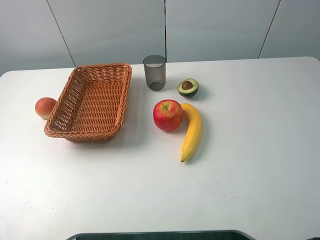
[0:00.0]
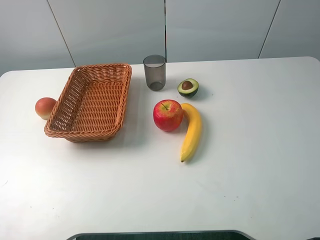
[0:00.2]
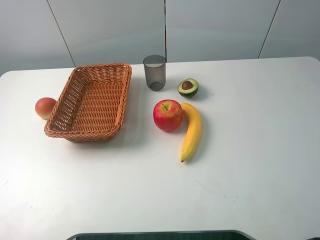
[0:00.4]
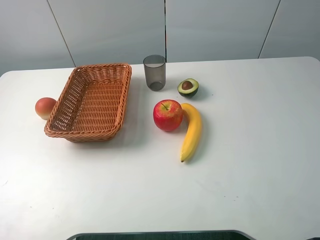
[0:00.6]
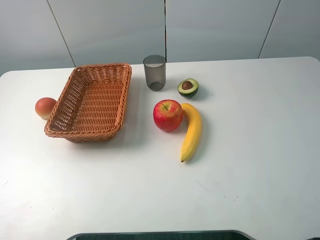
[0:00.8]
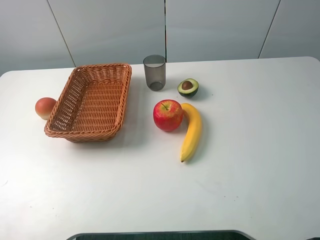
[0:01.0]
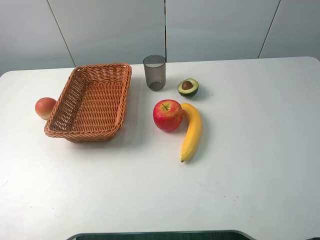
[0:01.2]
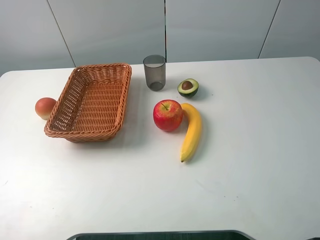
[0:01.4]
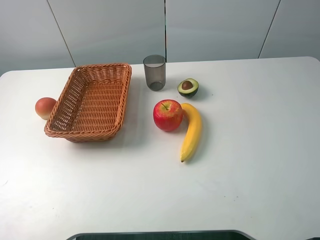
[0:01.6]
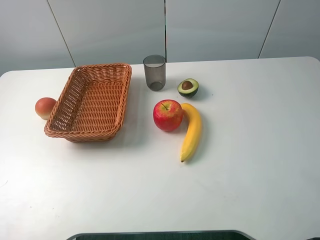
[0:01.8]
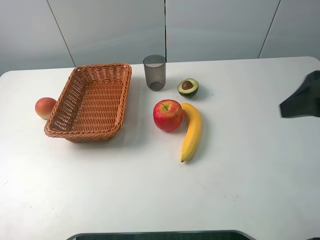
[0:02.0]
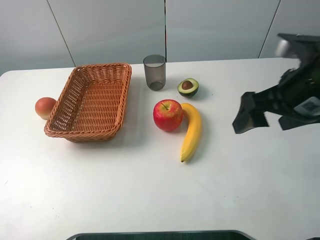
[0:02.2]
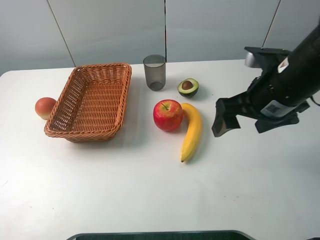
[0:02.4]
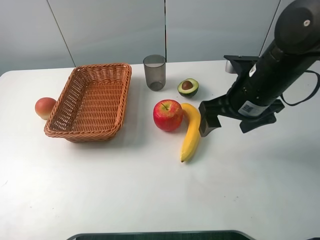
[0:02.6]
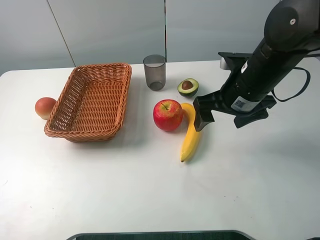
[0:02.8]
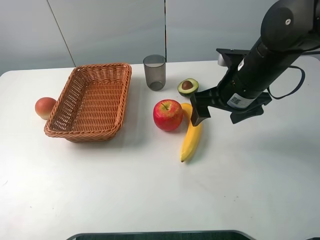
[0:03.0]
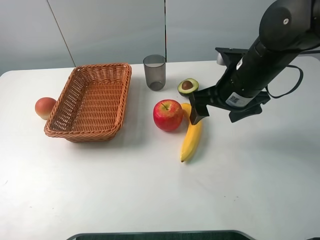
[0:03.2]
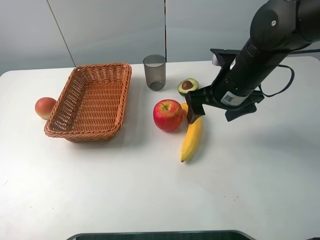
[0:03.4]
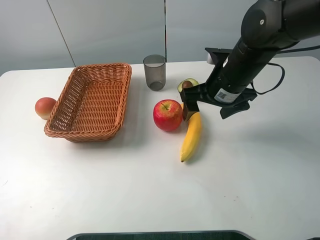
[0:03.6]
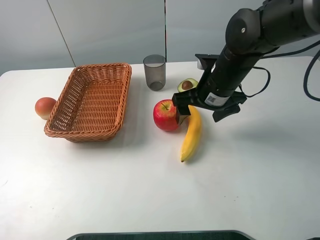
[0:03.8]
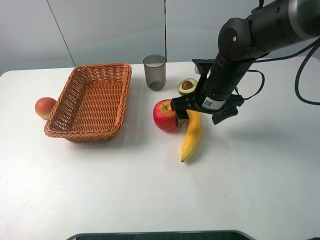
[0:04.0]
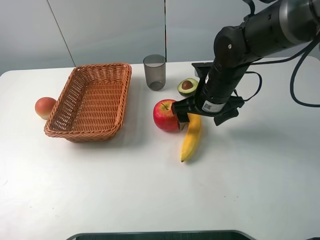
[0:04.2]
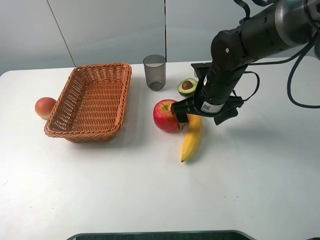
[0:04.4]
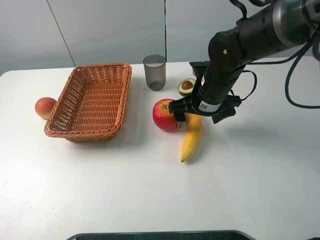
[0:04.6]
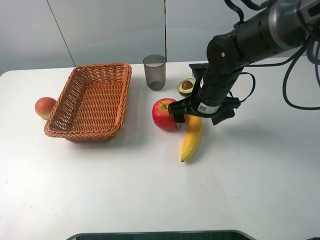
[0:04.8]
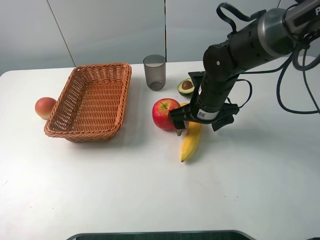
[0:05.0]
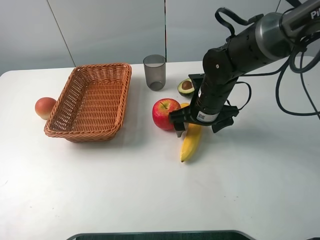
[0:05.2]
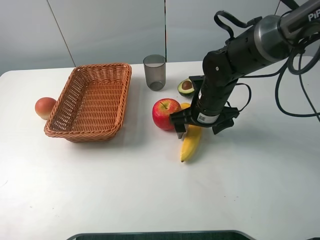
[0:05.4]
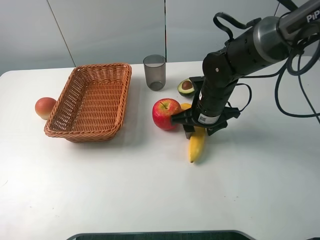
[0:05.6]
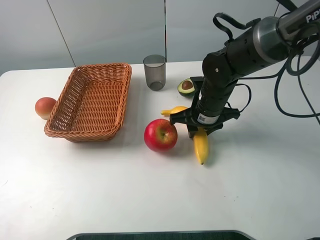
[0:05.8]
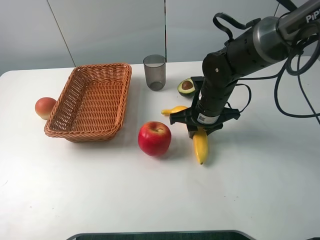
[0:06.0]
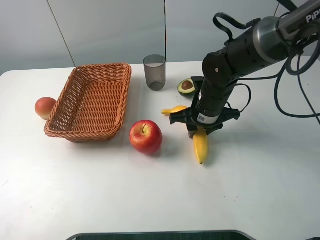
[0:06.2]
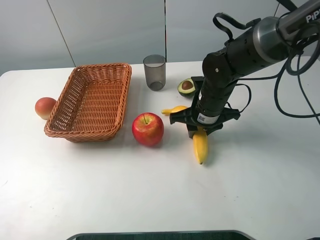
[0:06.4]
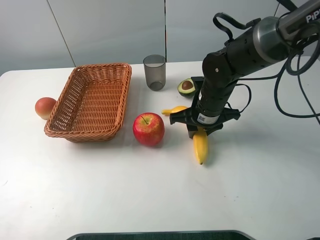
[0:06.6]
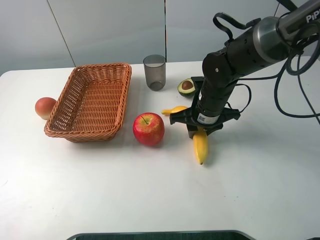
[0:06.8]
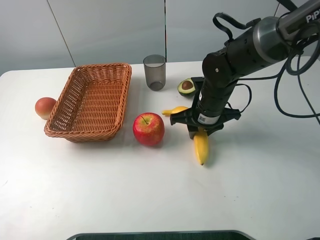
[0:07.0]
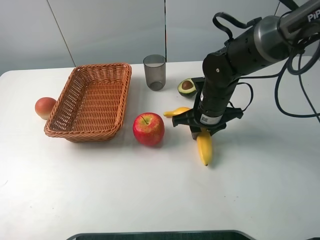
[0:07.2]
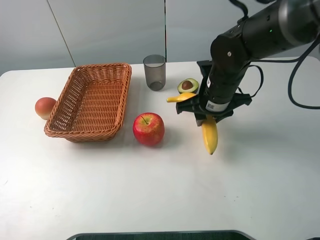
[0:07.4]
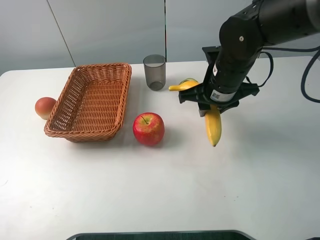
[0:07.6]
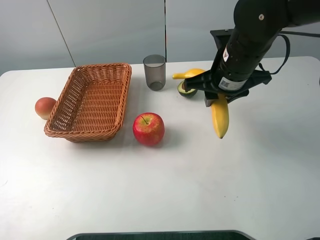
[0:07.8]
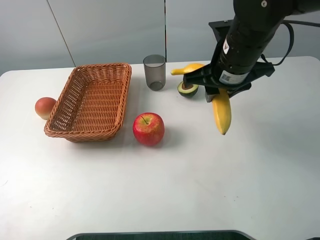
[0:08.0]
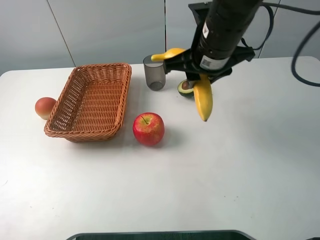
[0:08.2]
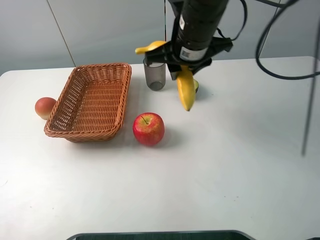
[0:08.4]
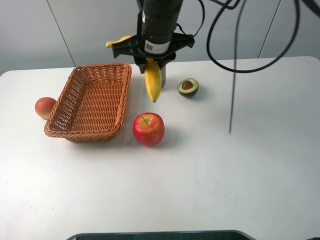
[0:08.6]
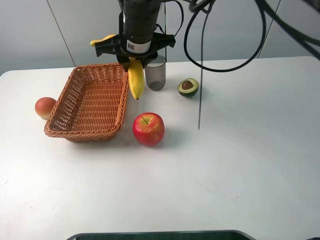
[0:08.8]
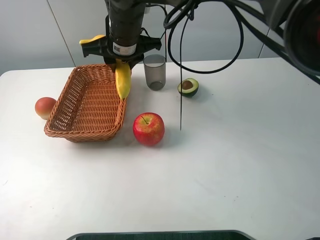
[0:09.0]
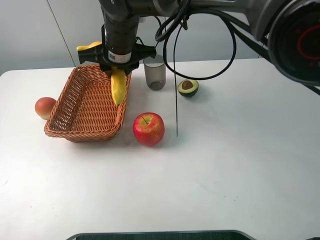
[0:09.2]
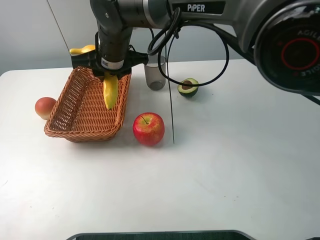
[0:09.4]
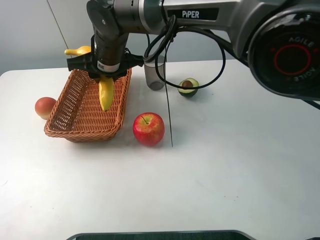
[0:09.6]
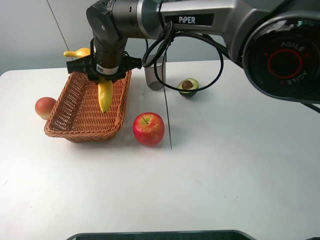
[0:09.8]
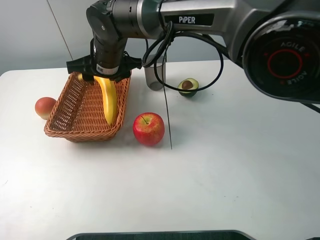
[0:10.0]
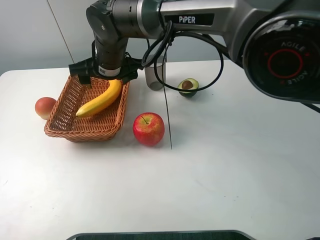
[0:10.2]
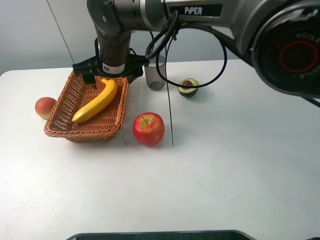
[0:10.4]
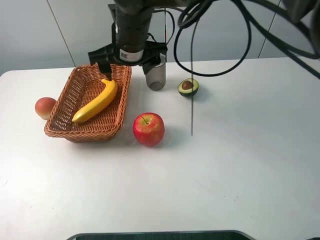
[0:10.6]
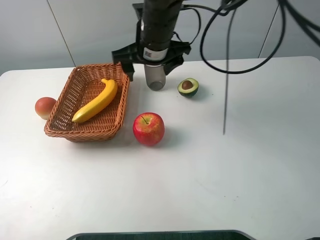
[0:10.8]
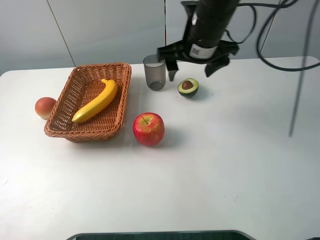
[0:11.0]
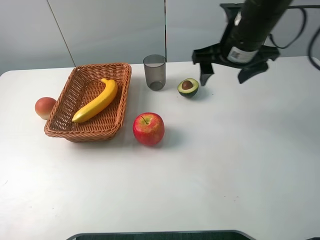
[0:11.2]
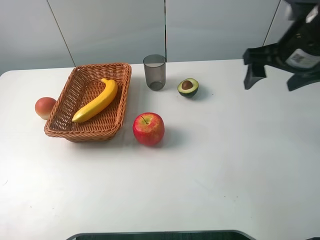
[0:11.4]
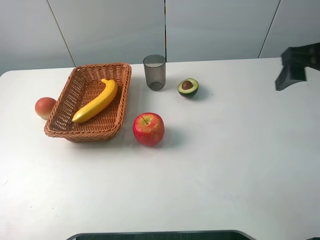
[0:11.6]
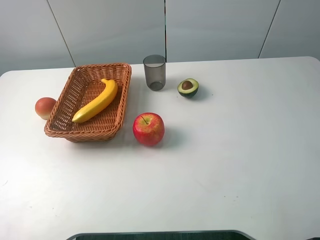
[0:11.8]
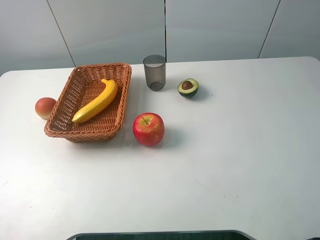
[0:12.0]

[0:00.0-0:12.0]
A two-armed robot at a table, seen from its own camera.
0:01.6 to 0:03.0: The right gripper heads forward, to the left and downward, covering some 30 cm.
0:03.0 to 0:04.4: The right gripper goes roughly 5 cm downward.
0:04.4 to 0:06.0: The right gripper closes.
0:06.0 to 0:07.6: The right gripper travels upward by some 10 cm.
0:07.6 to 0:09.0: The right gripper travels to the left by some 20 cm.
0:09.0 to 0:10.4: The right gripper opens its fingers.
0:10.4 to 0:12.0: The right gripper heads to the right and backward, covering some 40 cm.

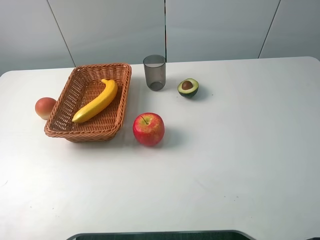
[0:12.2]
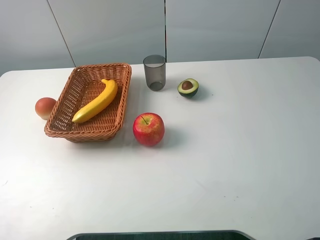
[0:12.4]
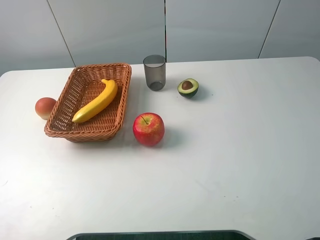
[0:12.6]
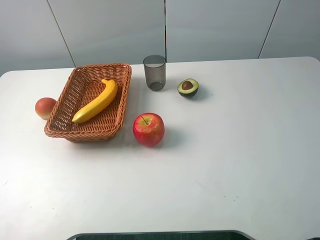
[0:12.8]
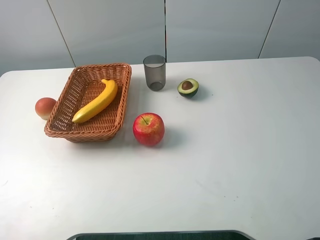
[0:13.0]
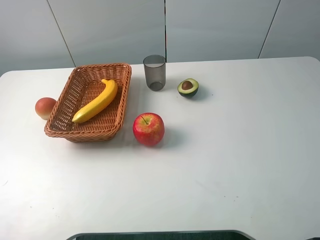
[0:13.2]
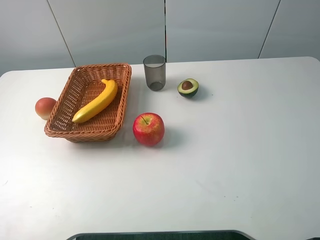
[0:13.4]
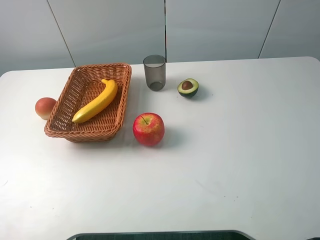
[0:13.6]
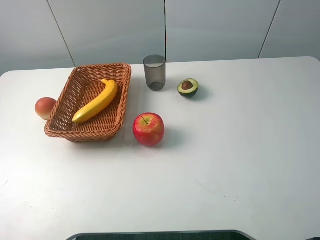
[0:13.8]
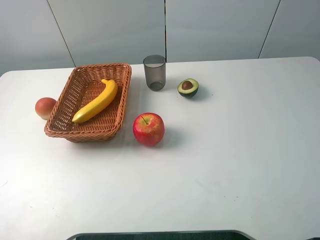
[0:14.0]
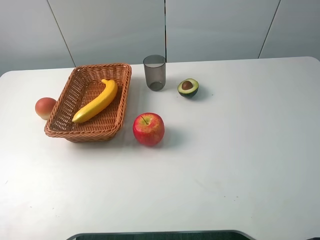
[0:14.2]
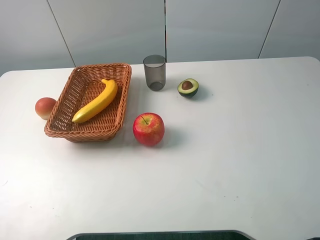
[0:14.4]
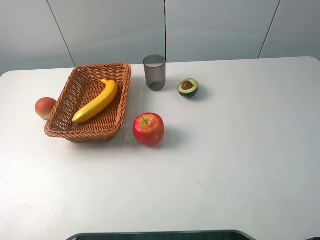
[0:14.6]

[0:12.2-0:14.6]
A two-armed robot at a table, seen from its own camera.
0:13.4 to 0:14.6: Both grippers stay about where they are.

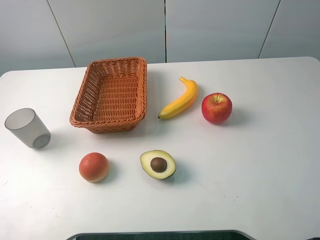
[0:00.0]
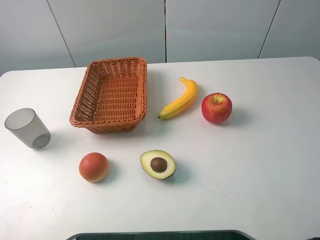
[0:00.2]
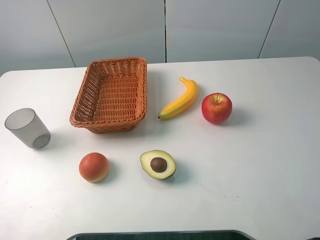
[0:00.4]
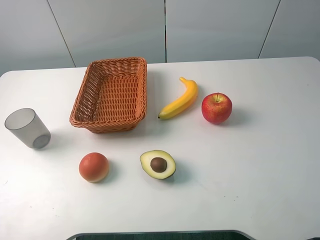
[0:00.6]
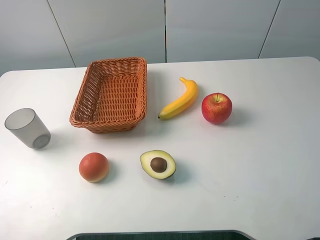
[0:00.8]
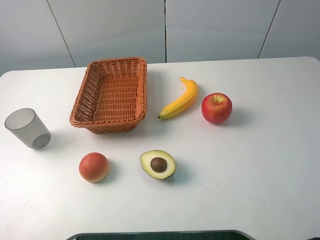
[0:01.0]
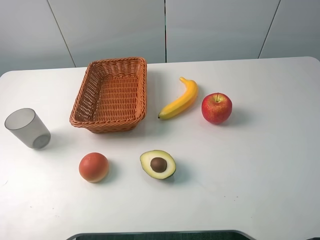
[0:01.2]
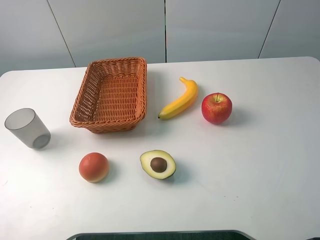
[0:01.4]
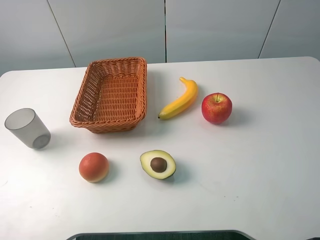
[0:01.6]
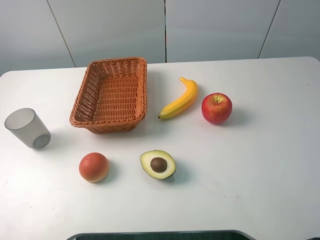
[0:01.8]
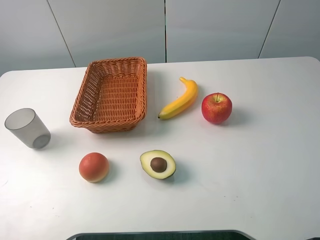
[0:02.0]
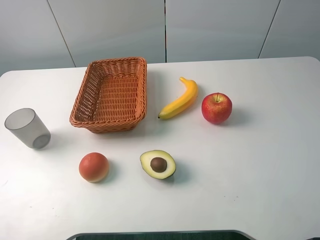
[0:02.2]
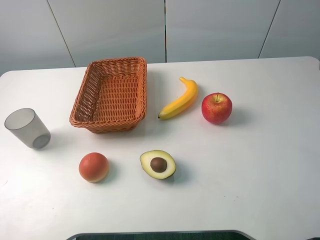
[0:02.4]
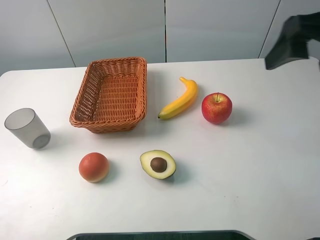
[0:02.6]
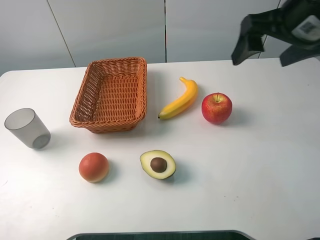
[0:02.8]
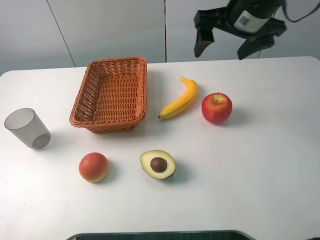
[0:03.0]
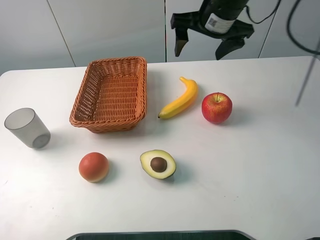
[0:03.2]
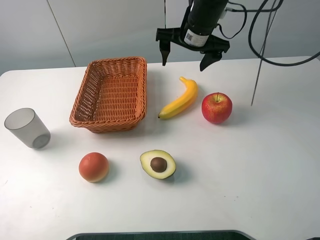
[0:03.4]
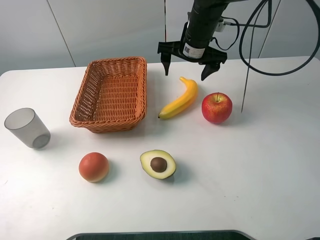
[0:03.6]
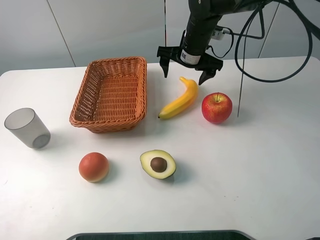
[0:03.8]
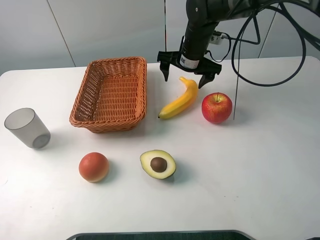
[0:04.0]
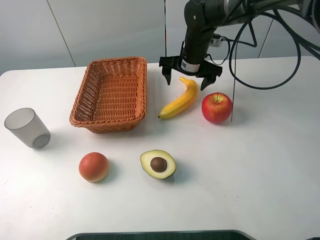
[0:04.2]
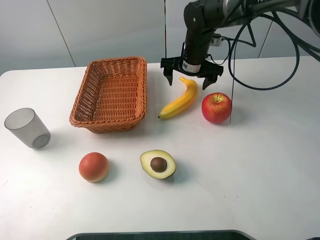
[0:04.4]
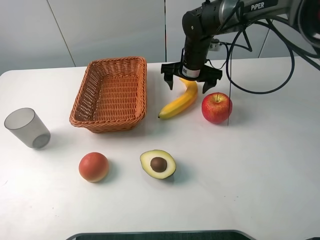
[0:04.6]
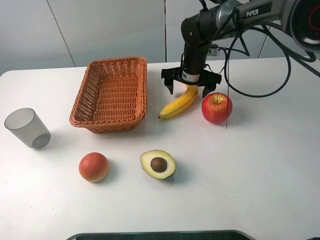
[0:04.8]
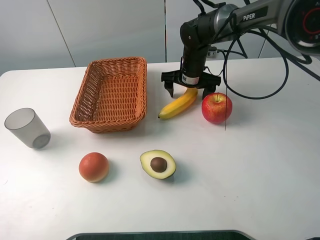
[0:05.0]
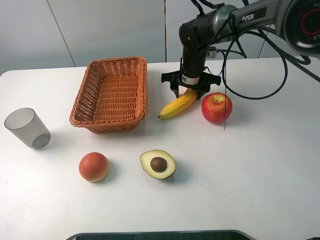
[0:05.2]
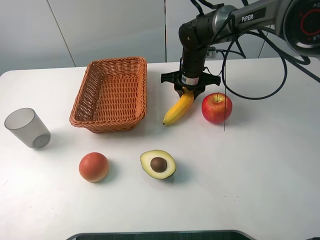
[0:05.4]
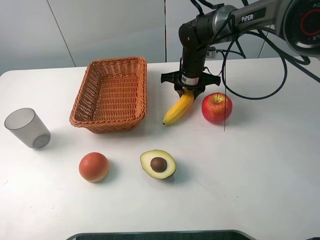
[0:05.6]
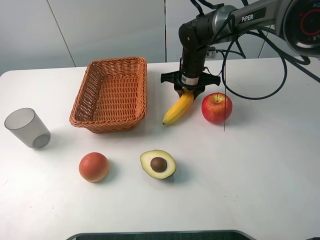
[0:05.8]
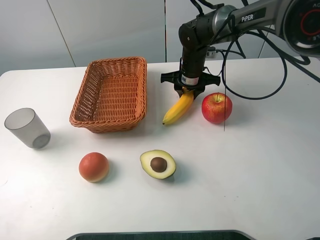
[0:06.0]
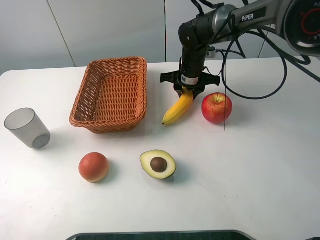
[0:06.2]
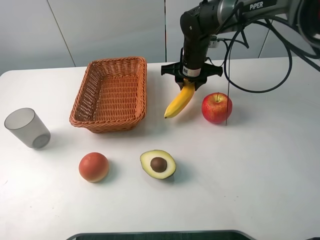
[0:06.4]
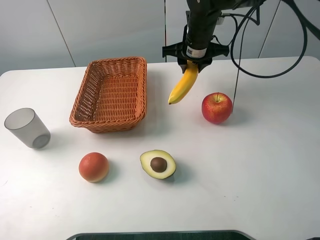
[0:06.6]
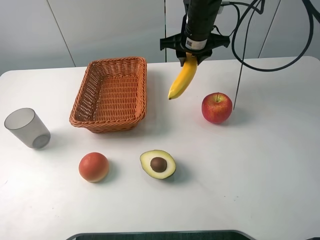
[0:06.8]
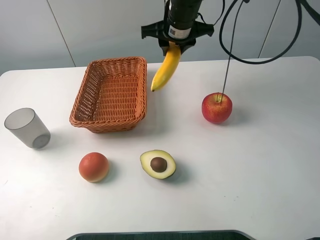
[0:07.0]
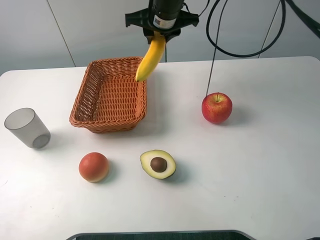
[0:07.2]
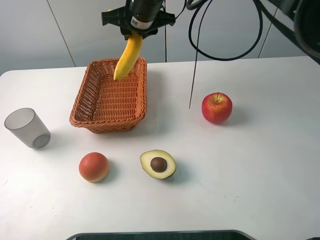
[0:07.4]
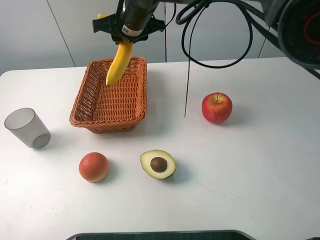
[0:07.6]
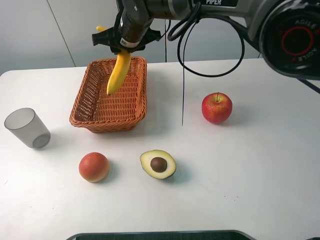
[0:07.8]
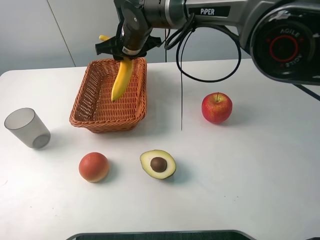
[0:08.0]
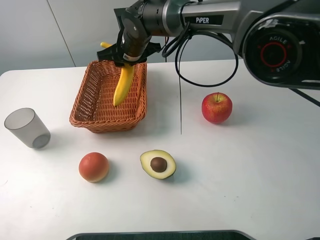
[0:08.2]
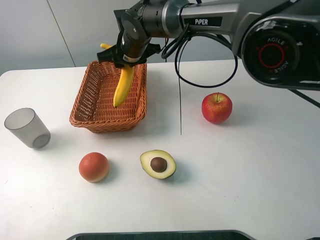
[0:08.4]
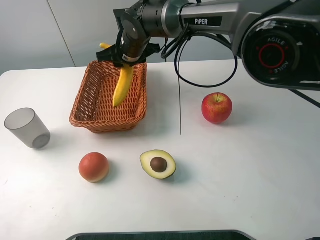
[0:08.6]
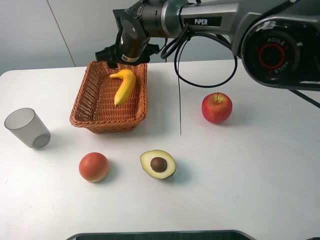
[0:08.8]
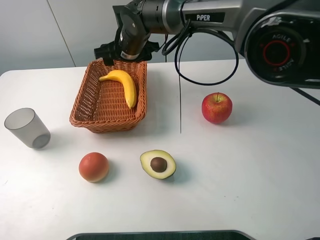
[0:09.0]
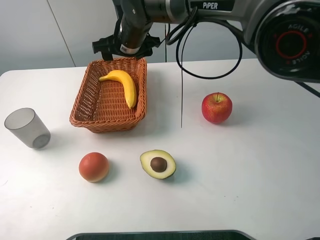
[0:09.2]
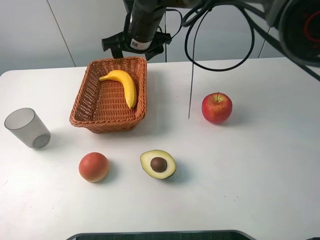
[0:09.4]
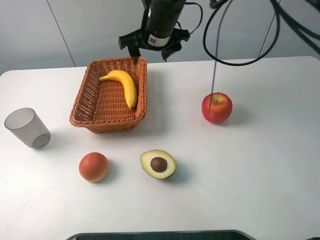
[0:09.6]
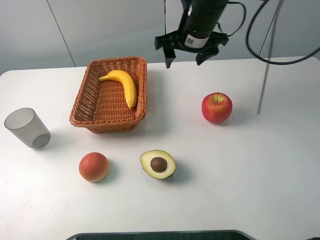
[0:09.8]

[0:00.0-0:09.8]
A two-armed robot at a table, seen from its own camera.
0:00.0 to 0:01.4: Both grippers stay put.
0:01.4 to 0:02.8: The right gripper travels forward by roughly 25 cm.
0:02.8 to 0:04.2: The right gripper travels downward, forward and to the left by about 25 cm.
0:04.2 to 0:05.6: The right gripper closes.
0:05.6 to 0:07.0: The right gripper is displaced upward by roughly 15 cm.
0:07.0 to 0:08.4: The right gripper shifts some 10 cm to the left and downward.
0:08.4 to 0:09.8: The right gripper is displaced to the right and upward by roughly 15 cm, and opens its fingers.
